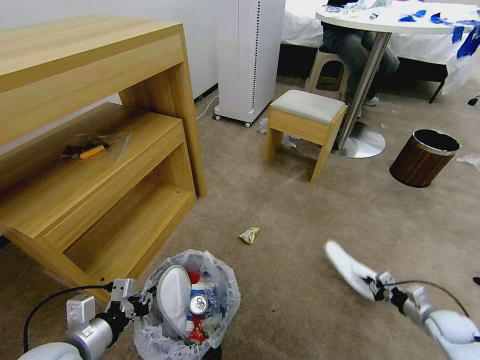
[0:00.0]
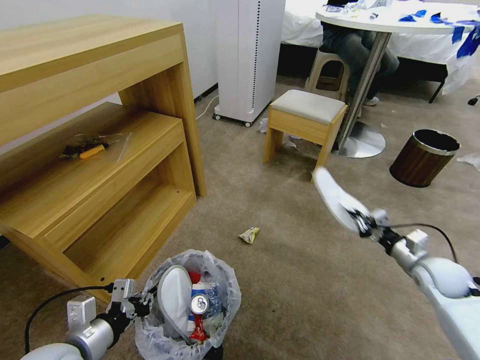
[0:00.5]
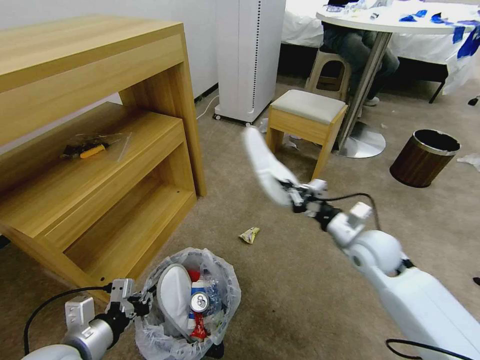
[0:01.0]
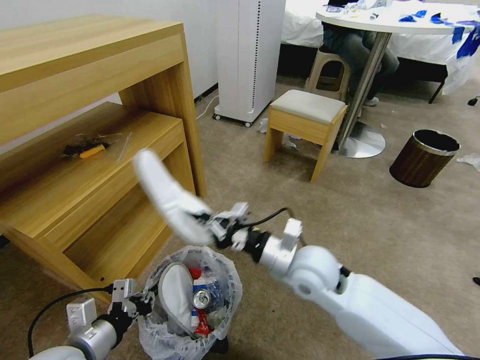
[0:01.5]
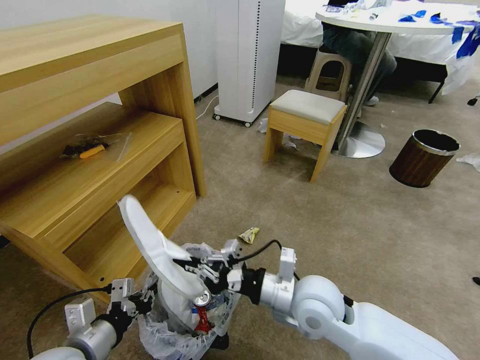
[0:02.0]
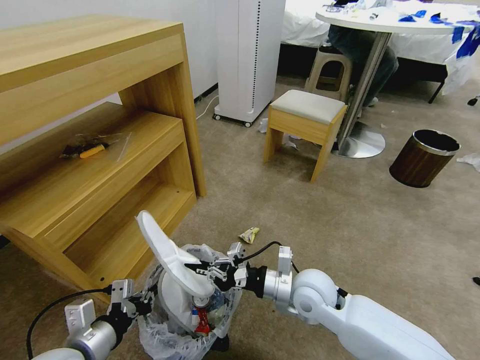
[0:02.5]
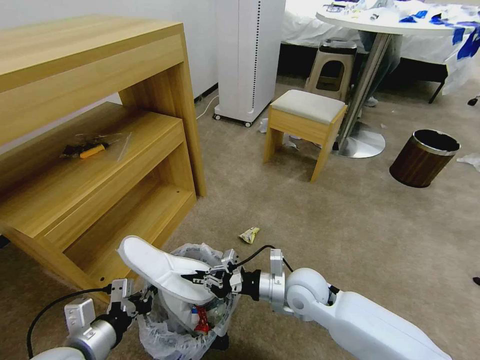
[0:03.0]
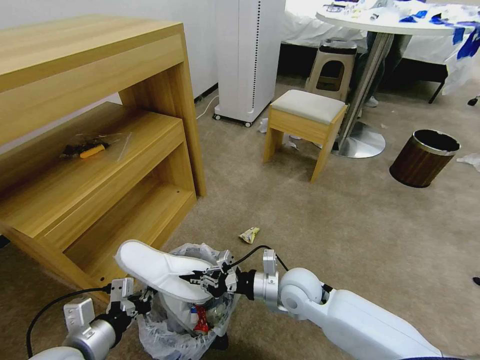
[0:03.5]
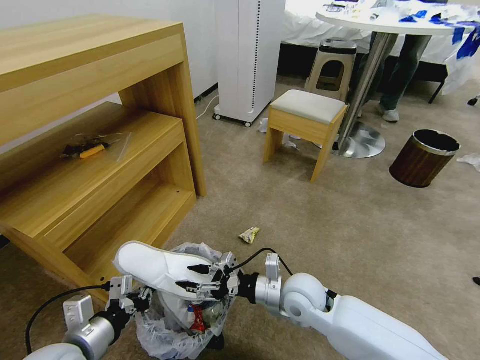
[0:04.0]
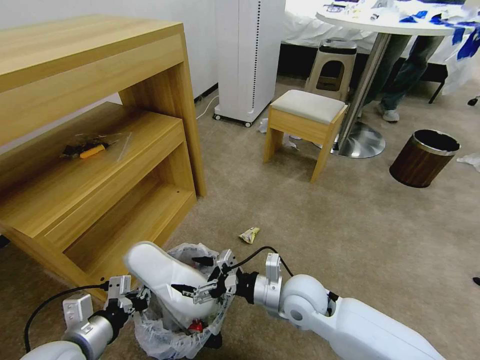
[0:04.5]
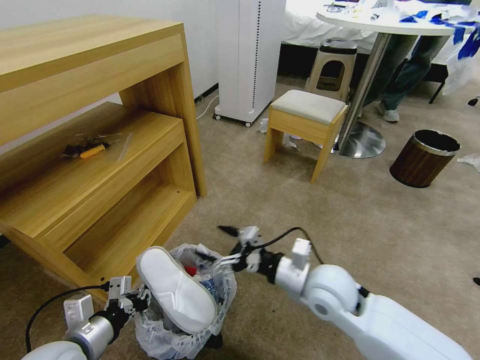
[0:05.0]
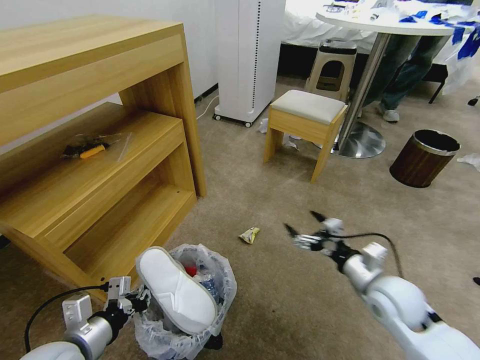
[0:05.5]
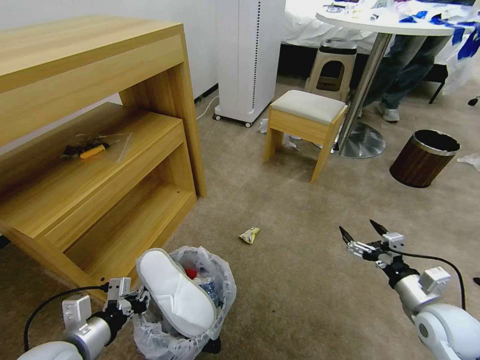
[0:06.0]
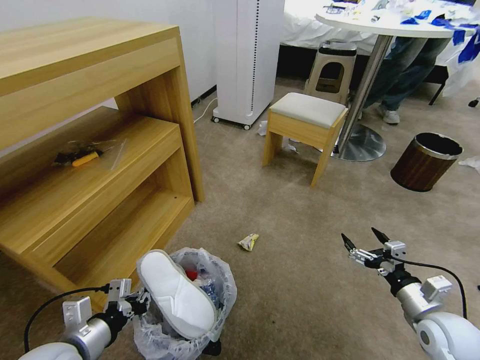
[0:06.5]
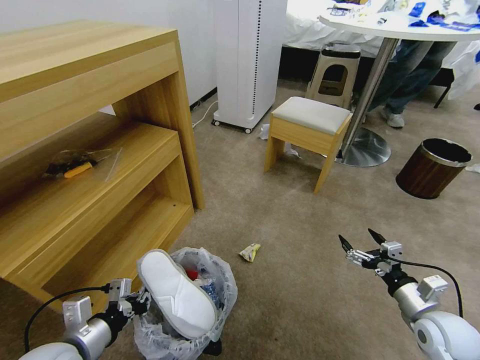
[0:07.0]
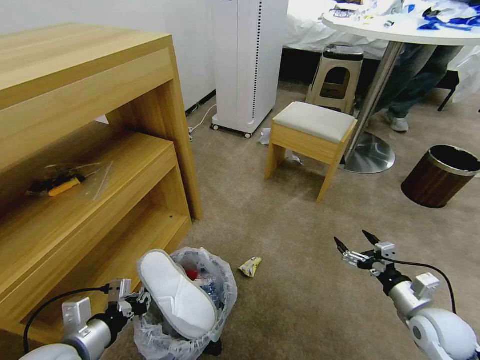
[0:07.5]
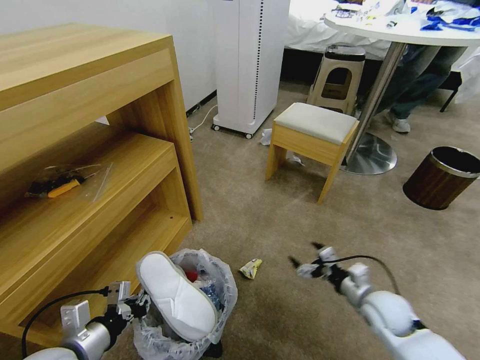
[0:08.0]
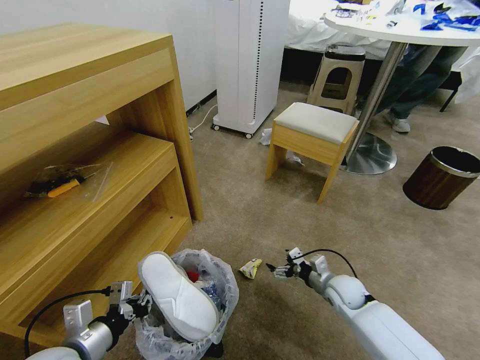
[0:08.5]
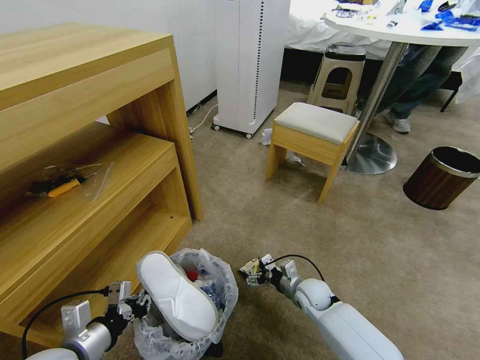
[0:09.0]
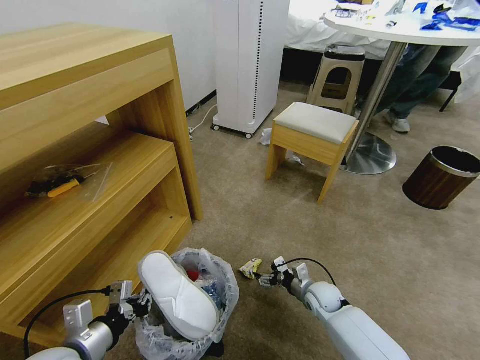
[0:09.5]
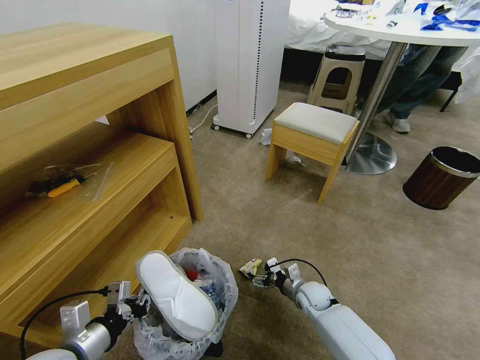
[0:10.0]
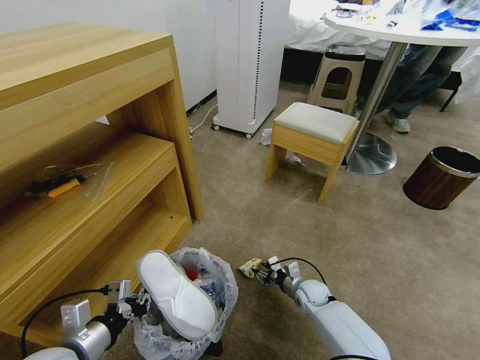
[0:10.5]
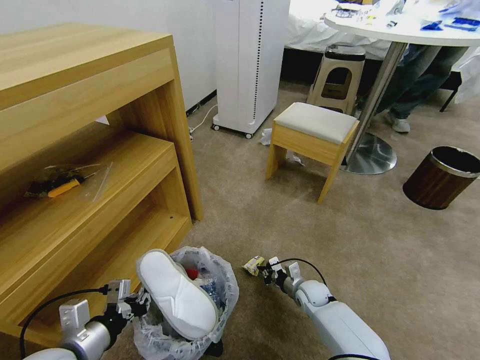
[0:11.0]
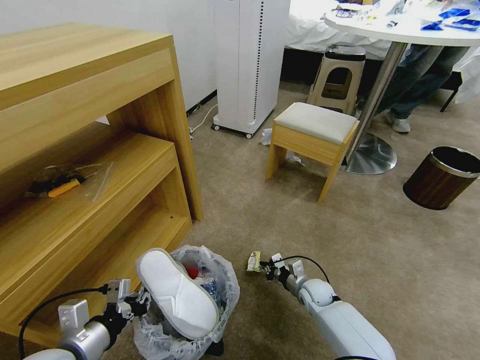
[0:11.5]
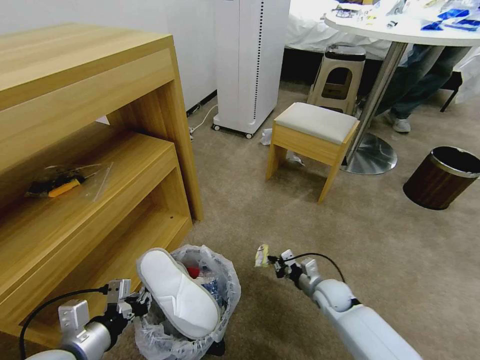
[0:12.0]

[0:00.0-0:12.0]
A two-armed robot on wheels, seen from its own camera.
Task of the whole recording: Pick up the trash bin and place the garbage on the floor into it.
0:00.0 to 0:02.0: The right gripper goes roughly 50 cm to the left and upward.
0:02.0 to 0:04.0: The right gripper goes some 10 cm downward, and opens up.
0:04.0 to 0:06.0: The right gripper heads to the right, covering some 25 cm, and opens up.
0:06.0 to 0:08.0: The right gripper shifts some 10 cm to the left, downward and forward.
0:08.0 to 0:10.0: The right gripper is displaced downward, to the left and forward by approximately 20 cm.
0:10.0 to 0:12.0: The right gripper moves approximately 5 cm, and closes its fingers.

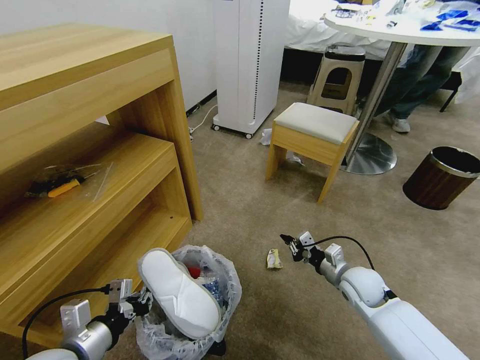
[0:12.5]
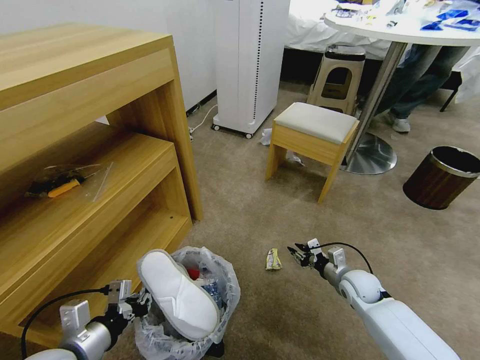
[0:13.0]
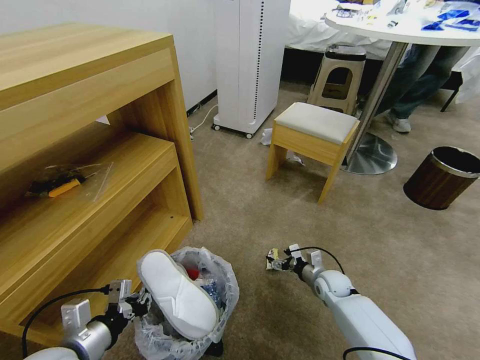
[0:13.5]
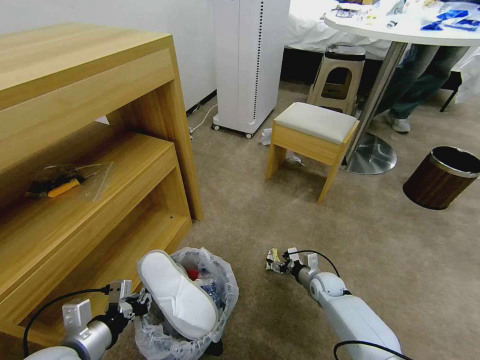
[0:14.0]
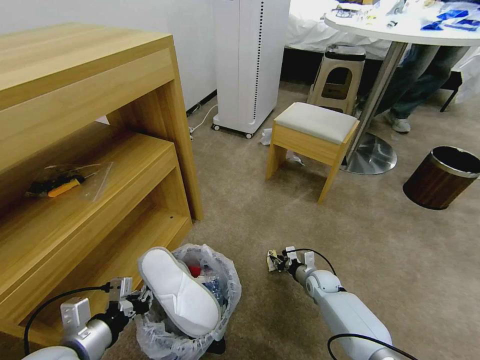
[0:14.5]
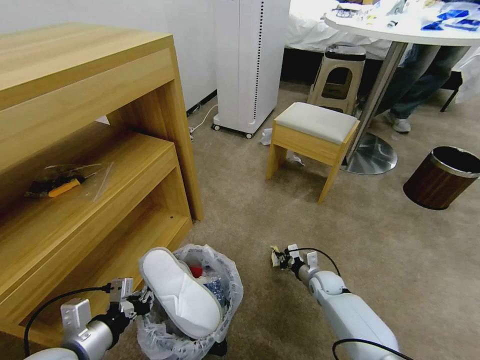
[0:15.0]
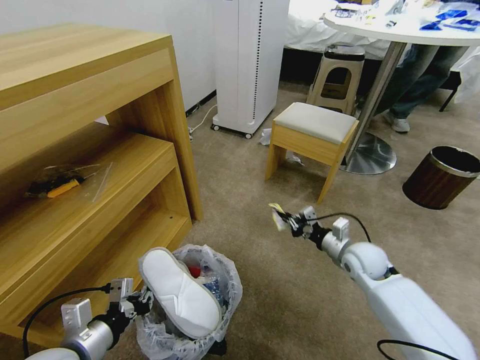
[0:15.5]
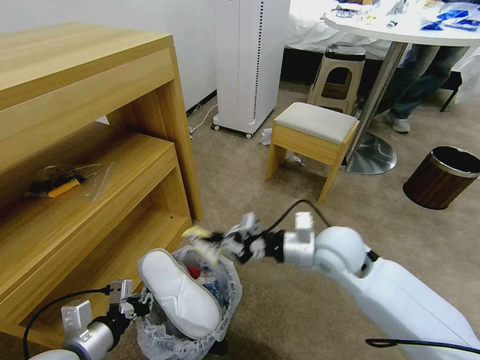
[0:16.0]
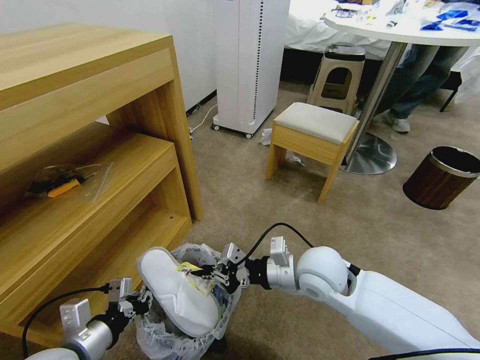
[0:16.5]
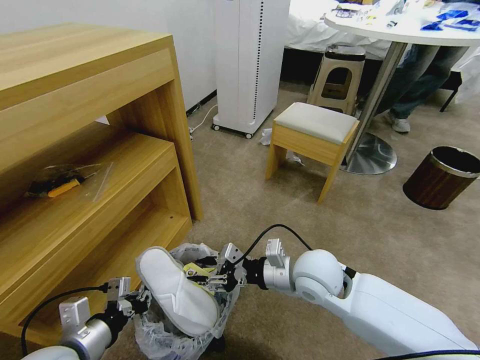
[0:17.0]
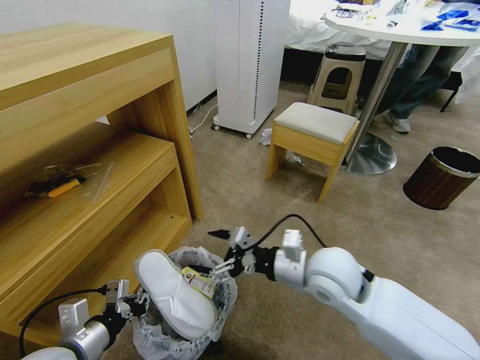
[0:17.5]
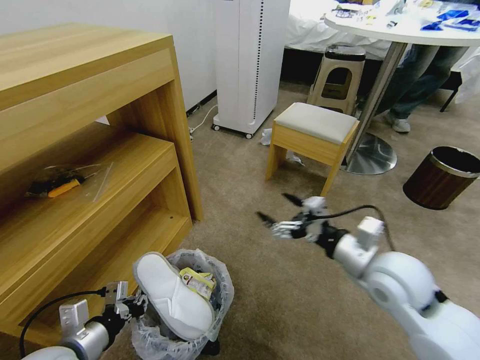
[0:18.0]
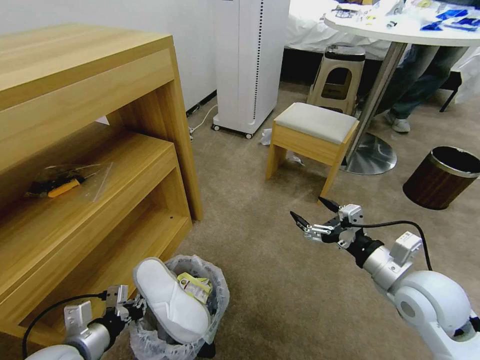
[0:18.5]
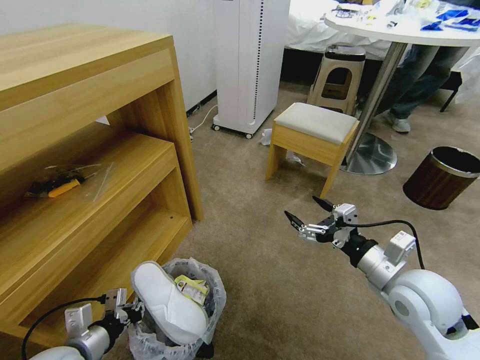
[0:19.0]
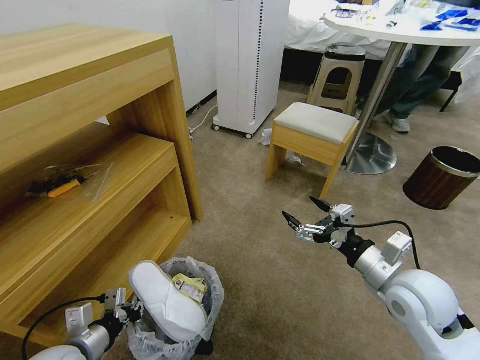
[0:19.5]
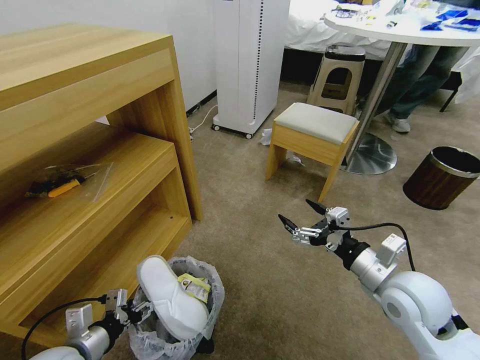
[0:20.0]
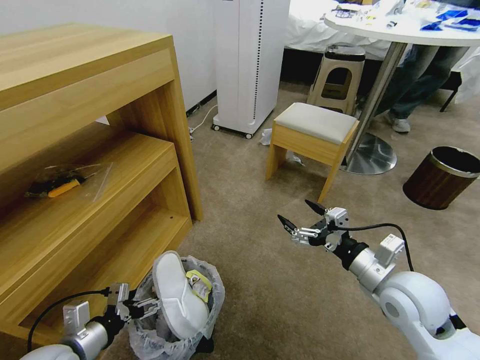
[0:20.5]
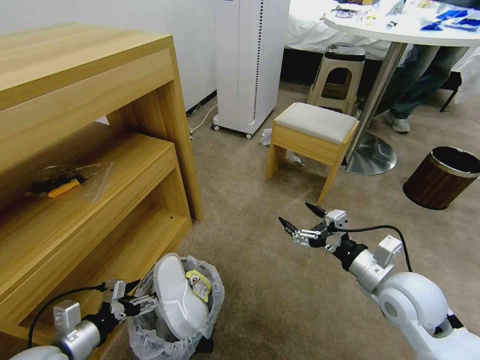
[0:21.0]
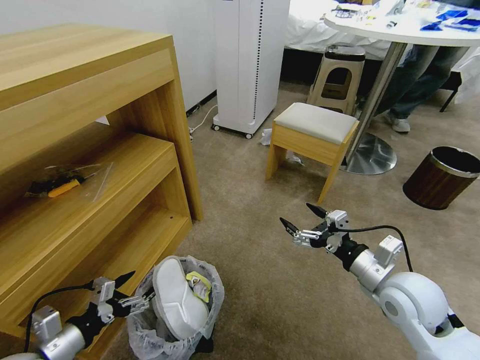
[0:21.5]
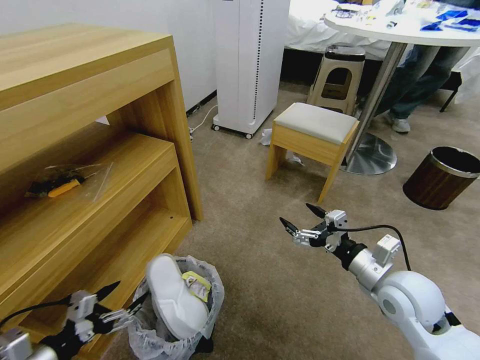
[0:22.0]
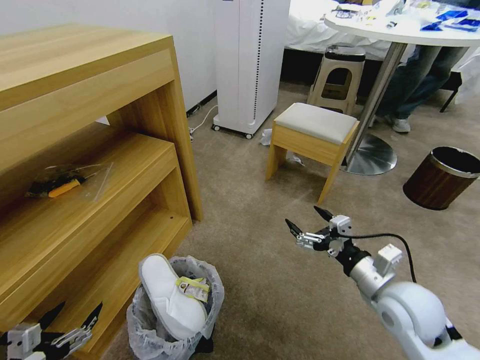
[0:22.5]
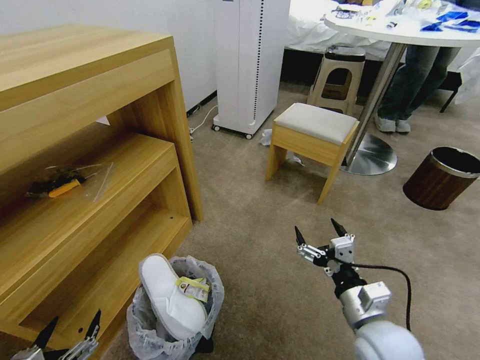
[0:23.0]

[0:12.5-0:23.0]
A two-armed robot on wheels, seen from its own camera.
Task of the whole recording: Pick up the trash bin and place the garbage on the floor into it.
0:12.5 to 0:14.5: The right gripper shifts roughly 15 cm downward and forward, and opens and closes again.
0:14.5 to 0:16.5: The right gripper moves upward, roughly 30 cm.
0:16.5 to 0:19.0: The left gripper moves roughly 5 cm; the right gripper heads to the right, covering approximately 15 cm, and opens.
0:19.0 to 0:21.0: The left gripper opens.
0:21.0 to 0:23.0: The right gripper goes some 10 cm backward and to the left. Meanwhile the left gripper heads backward, covering approximately 15 cm.
